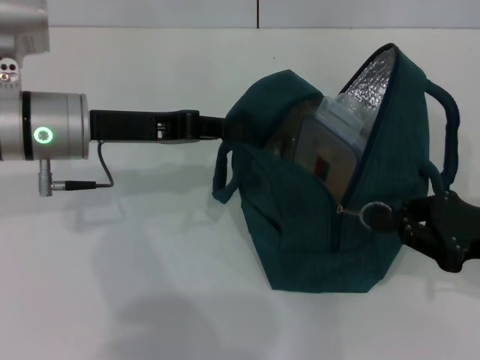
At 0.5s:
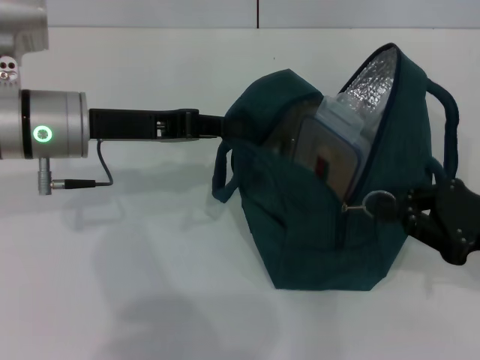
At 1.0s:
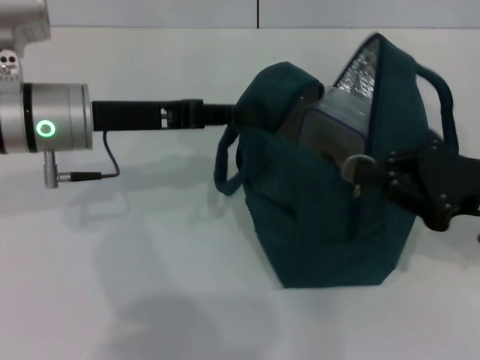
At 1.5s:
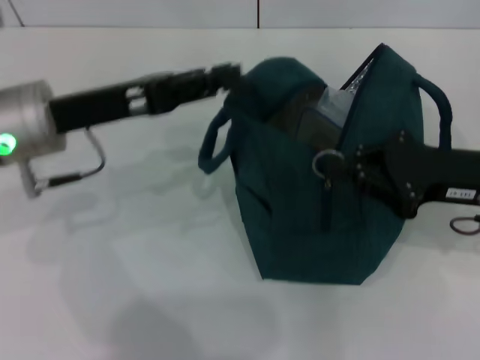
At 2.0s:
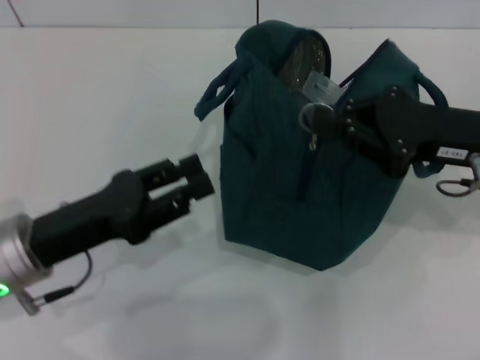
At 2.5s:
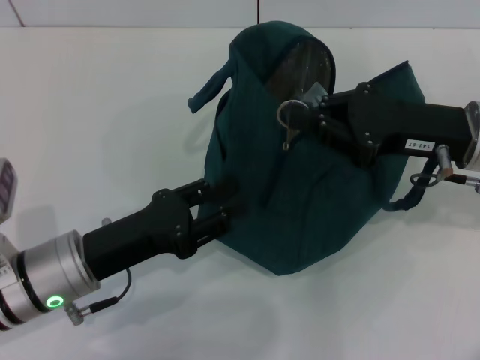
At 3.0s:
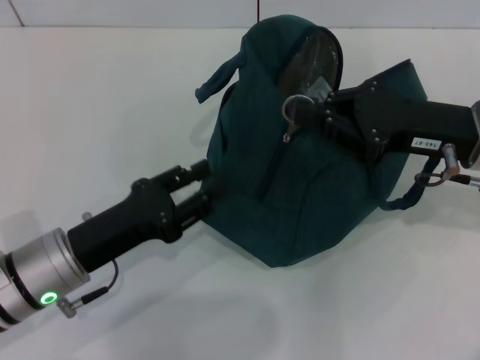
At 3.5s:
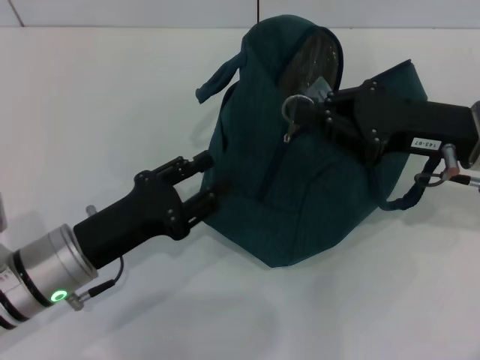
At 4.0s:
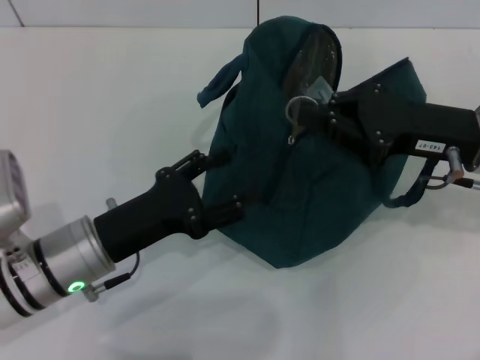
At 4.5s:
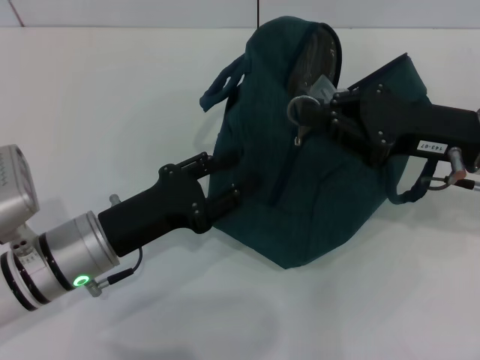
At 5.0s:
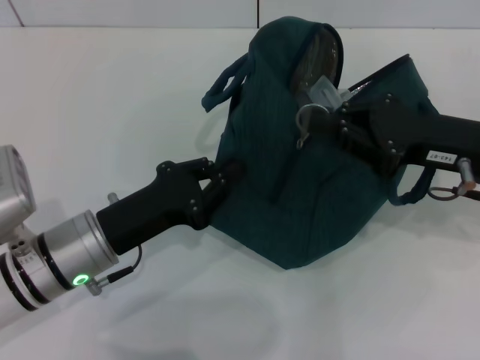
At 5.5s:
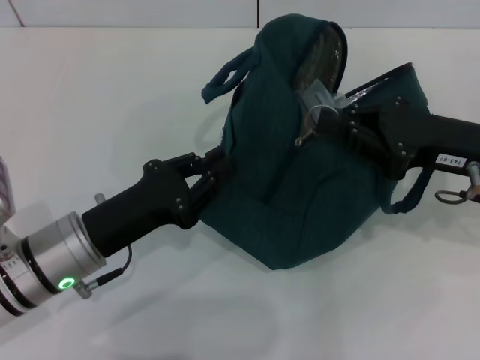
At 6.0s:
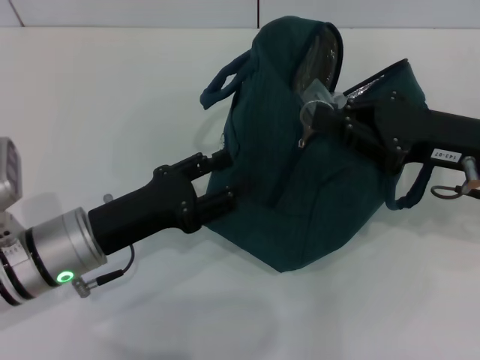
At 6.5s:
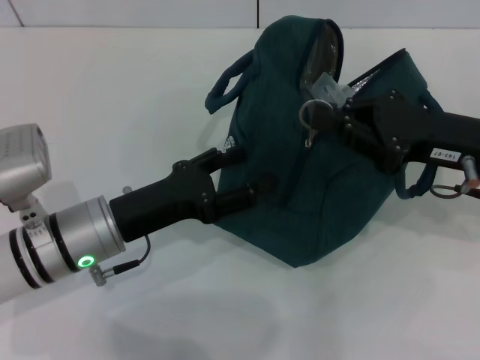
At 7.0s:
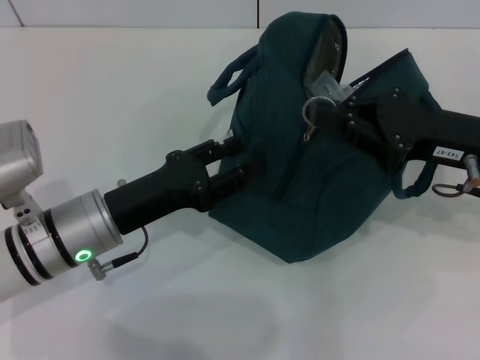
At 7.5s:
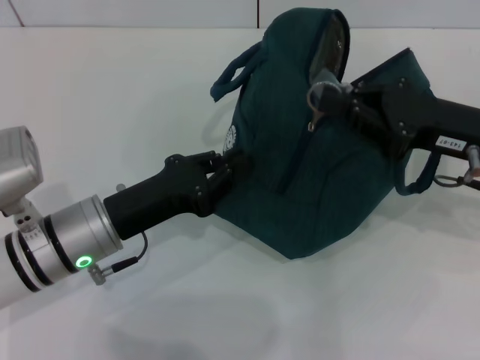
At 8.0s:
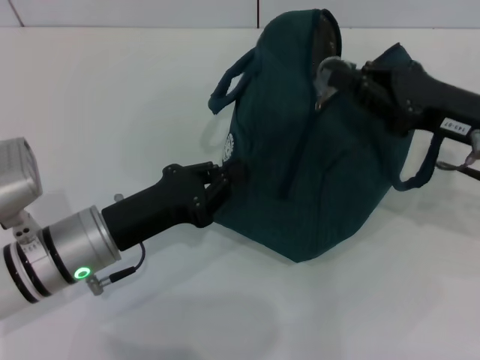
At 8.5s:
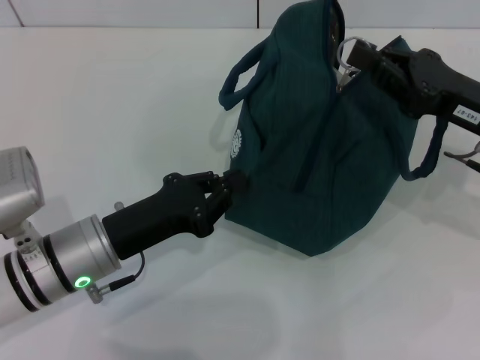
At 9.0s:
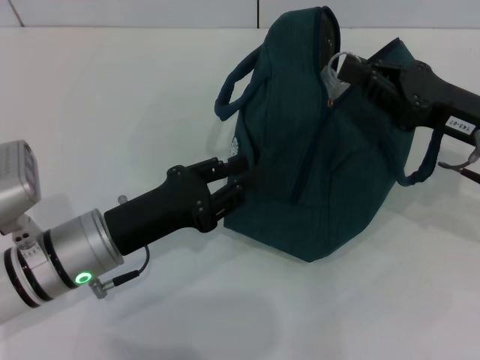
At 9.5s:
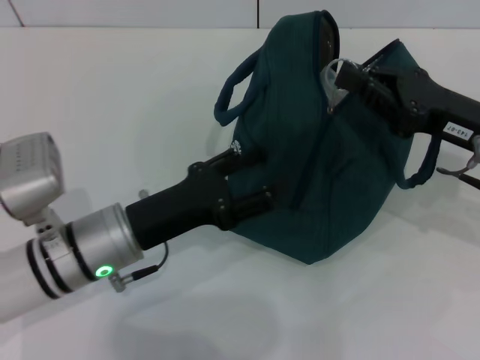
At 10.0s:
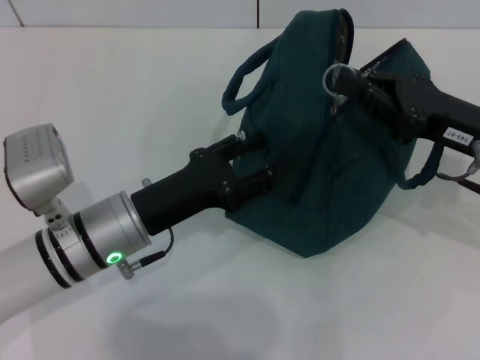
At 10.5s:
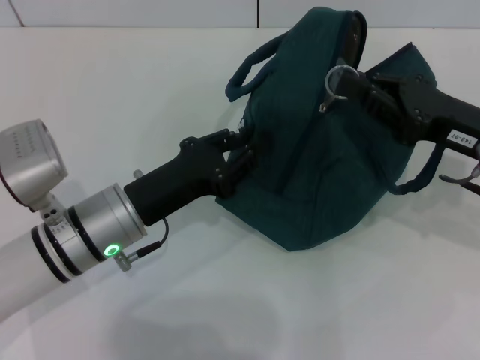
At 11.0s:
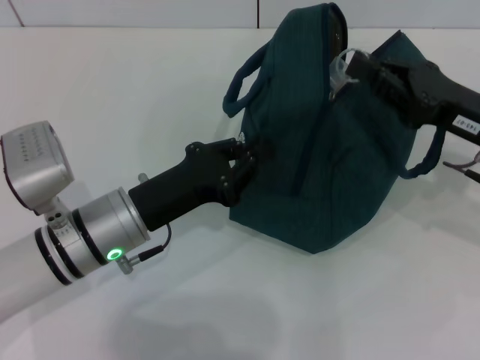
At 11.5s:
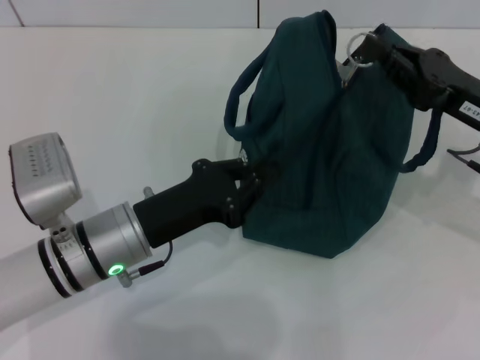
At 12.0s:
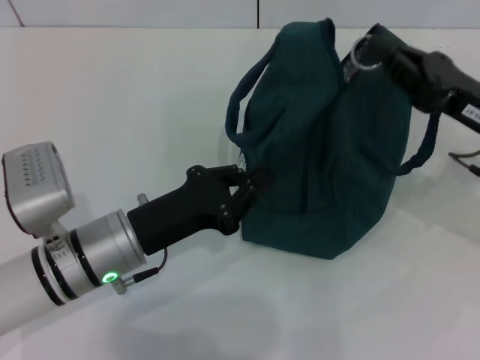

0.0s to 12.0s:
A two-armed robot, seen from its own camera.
0.0s to 2.0s: The left gripper shifts about 10 cm backward and downward, and opens up. The right gripper moves upward, forward and to the left, some 10 cm.
2.0s to 4.0s: The left gripper moves approximately 5 cm, and opens.
4.0s to 6.0s: The left gripper closes its fingers.
6.0s to 8.0s: The left gripper closes up.
8.0s to 10.0s: The left gripper opens up.
10.0s to 12.0s: The left gripper closes up.

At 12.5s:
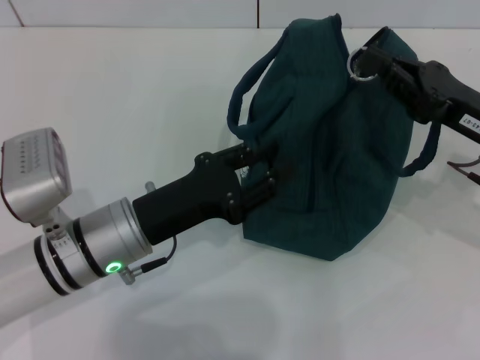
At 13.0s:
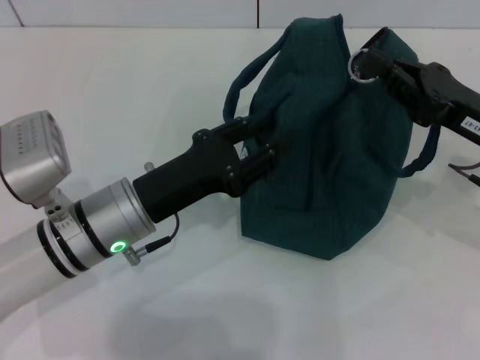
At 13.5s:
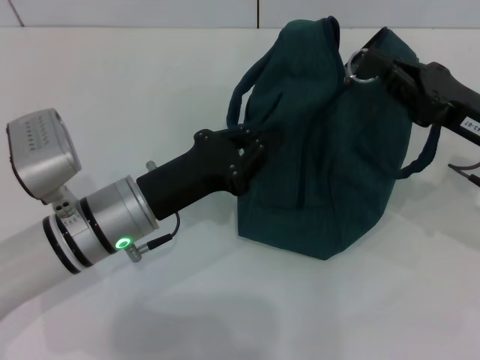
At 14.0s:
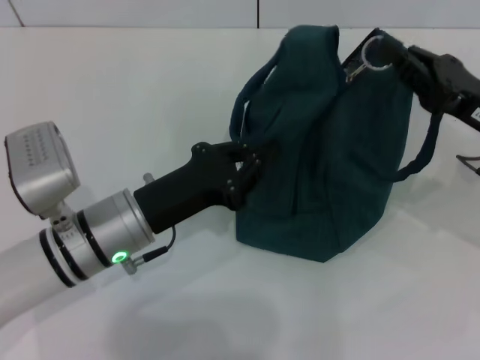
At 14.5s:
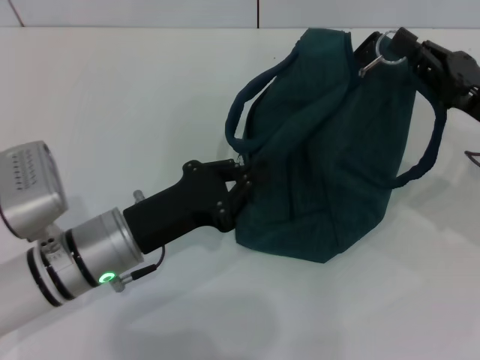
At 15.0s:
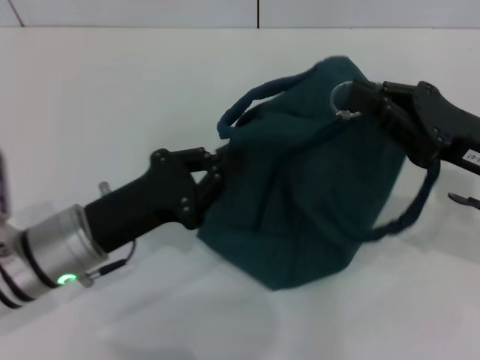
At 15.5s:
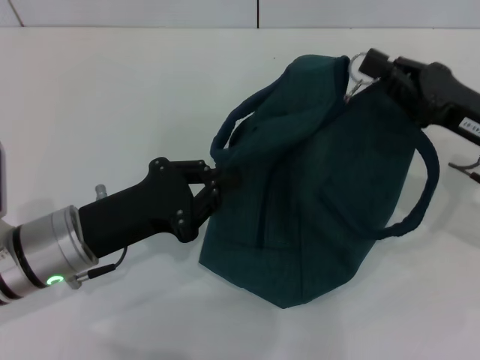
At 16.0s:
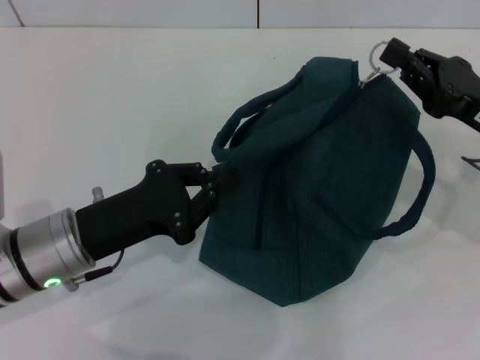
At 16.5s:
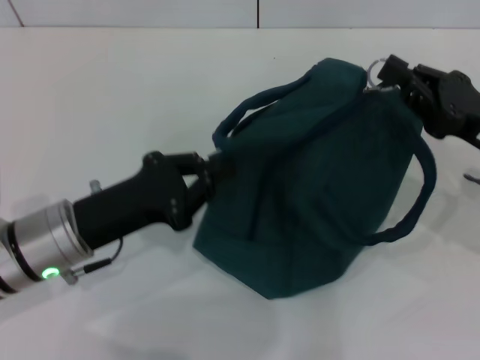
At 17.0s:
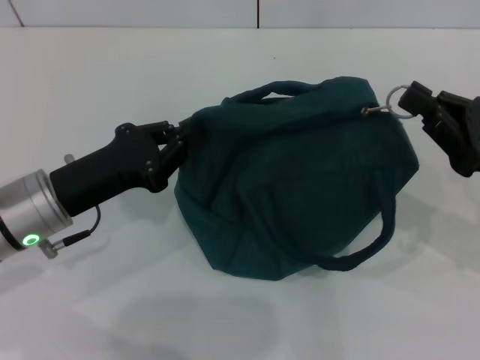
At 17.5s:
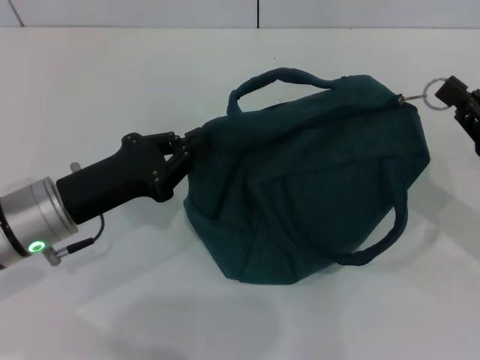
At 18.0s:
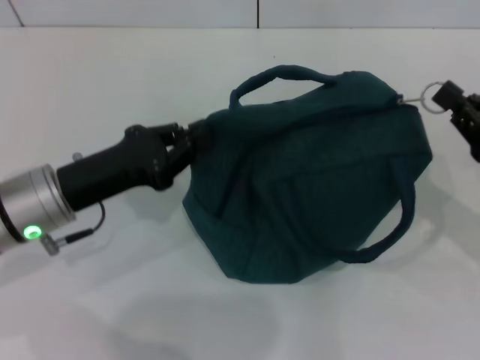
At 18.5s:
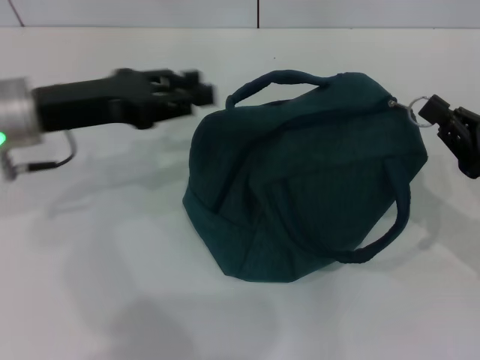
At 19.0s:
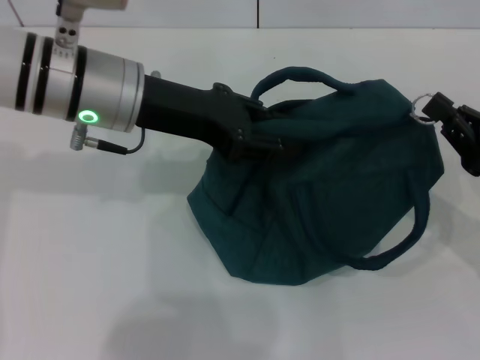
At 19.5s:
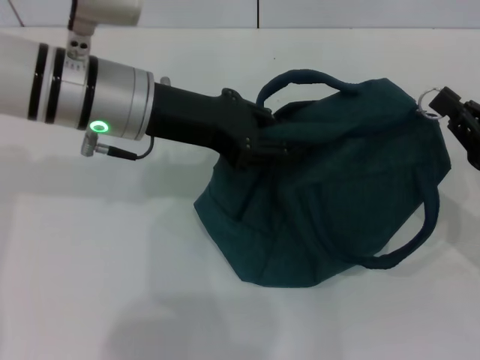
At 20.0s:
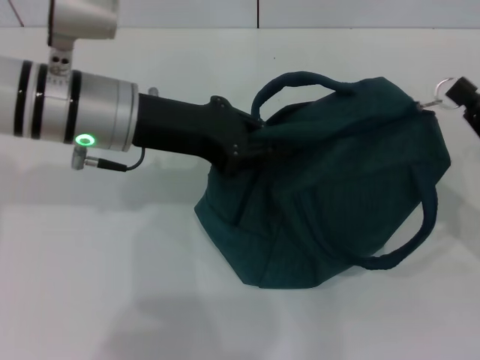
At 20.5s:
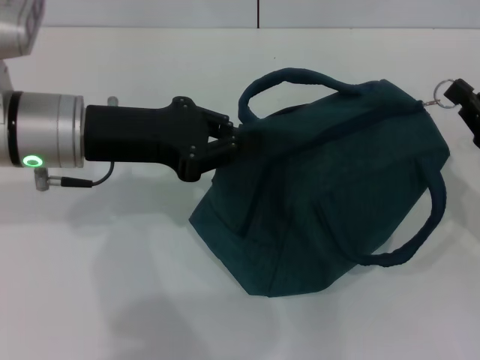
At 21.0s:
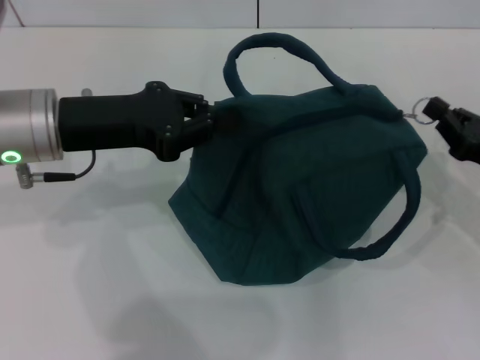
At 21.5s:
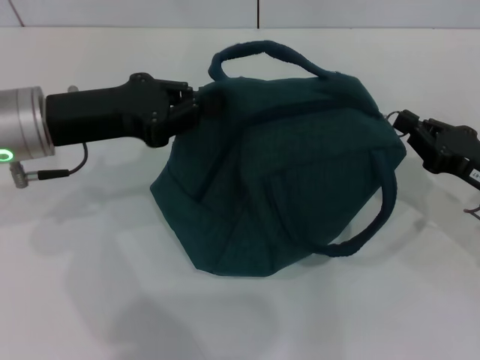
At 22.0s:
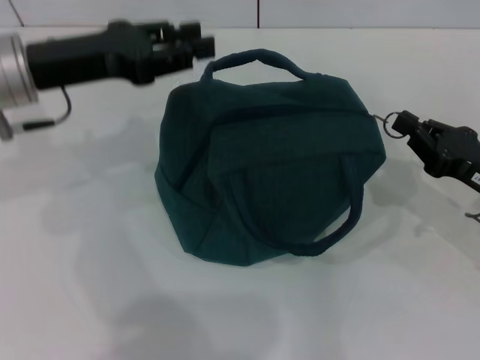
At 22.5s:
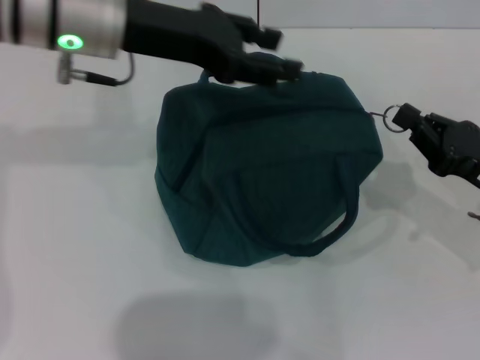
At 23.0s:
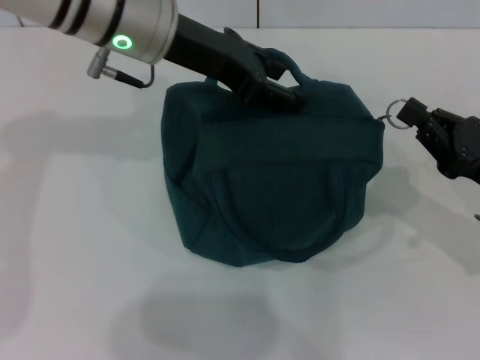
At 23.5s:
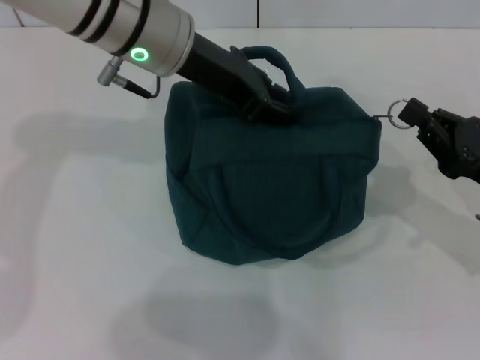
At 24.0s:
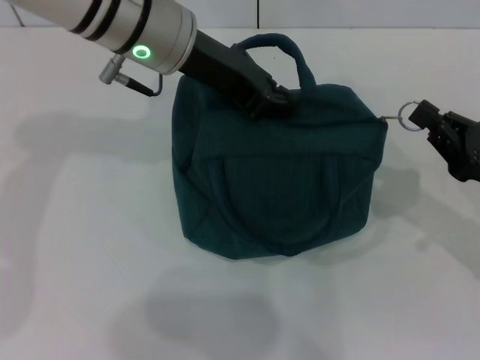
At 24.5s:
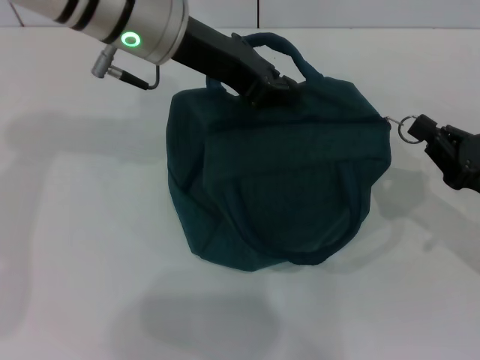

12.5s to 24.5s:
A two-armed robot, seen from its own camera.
12.5s to 14.5s: The left gripper opens, then closes again.
16.5s to 18.5s: The right gripper changes place by approximately 5 cm, while the left gripper travels upward and forward by about 10 cm.
18.5s to 20.5s: The left gripper closes up.
20.5s to 22.5s: The left gripper is displaced upward and forward by about 10 cm, and opens up.
22.5s to 24.5s: The left gripper closes up.

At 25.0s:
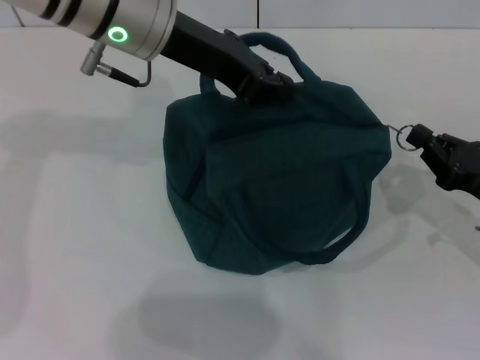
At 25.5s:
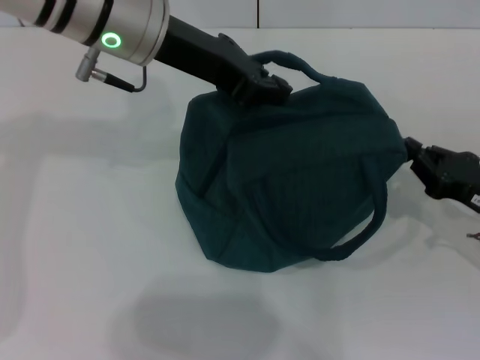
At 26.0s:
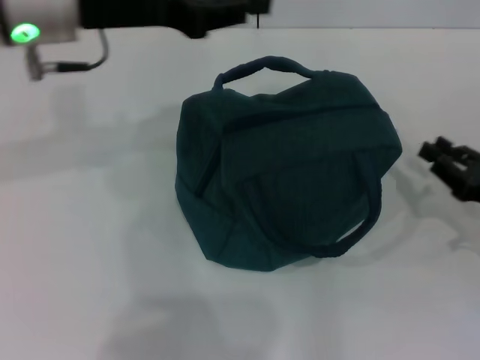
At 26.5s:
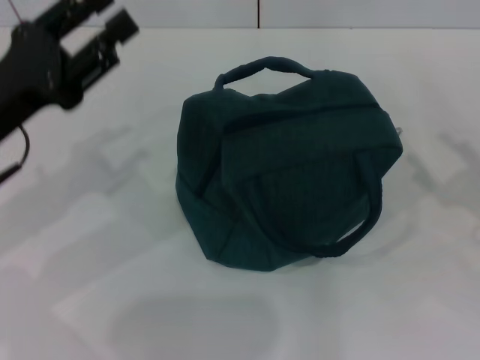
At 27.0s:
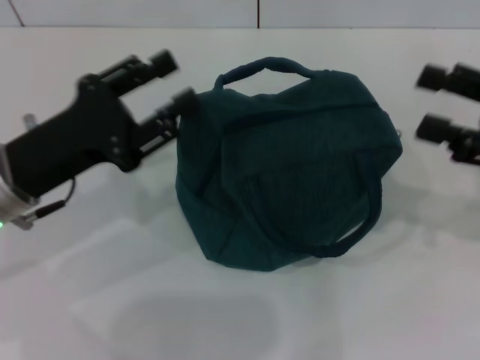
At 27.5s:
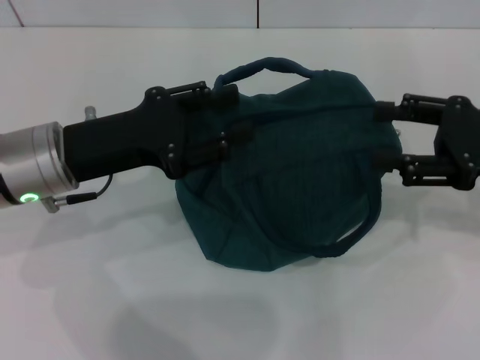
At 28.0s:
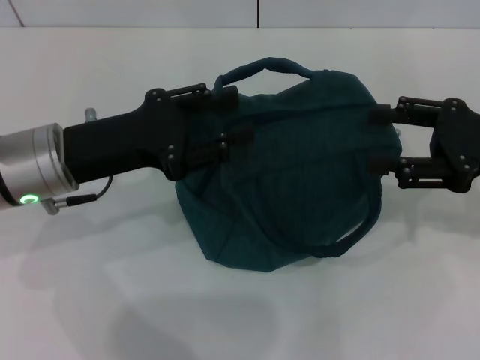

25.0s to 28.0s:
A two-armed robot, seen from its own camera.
25.0s to 26.5s: The left gripper shifts some 20 cm to the left, backward and downward, and opens up. Meanwhile the right gripper moves to the right, some 5 cm, and opens.
26.5s to 28.0s: The left gripper shifts some 5 cm to the right. Meanwhile the right gripper moves forward, to the left and upward, approximately 10 cm.
